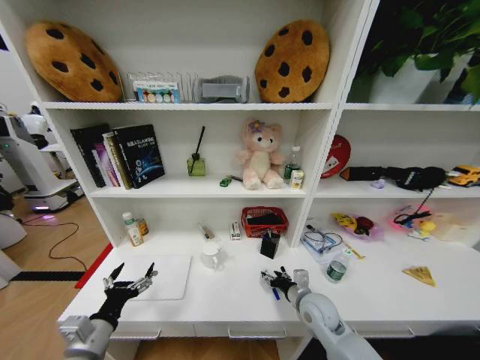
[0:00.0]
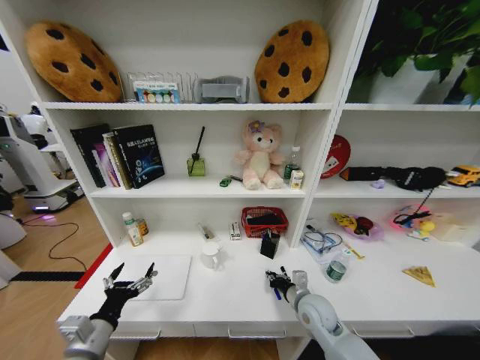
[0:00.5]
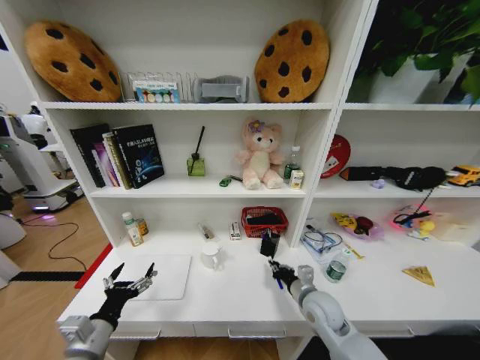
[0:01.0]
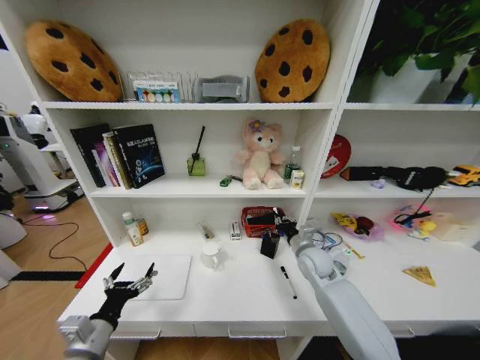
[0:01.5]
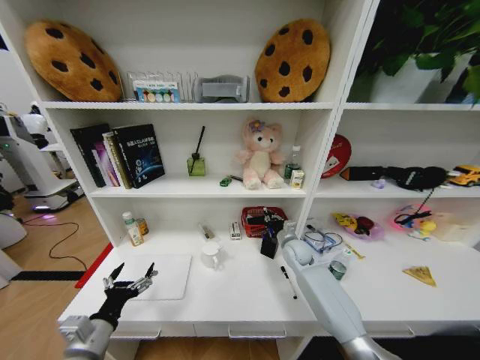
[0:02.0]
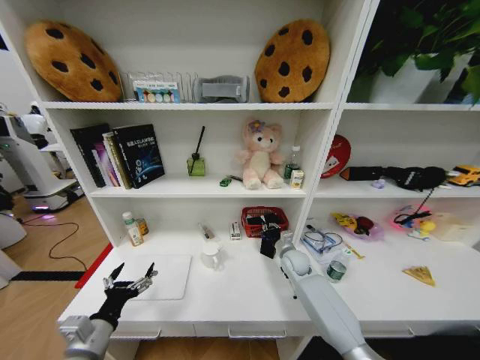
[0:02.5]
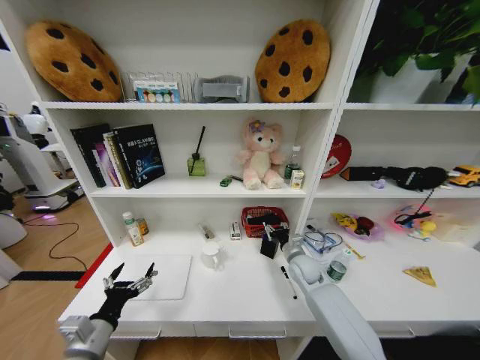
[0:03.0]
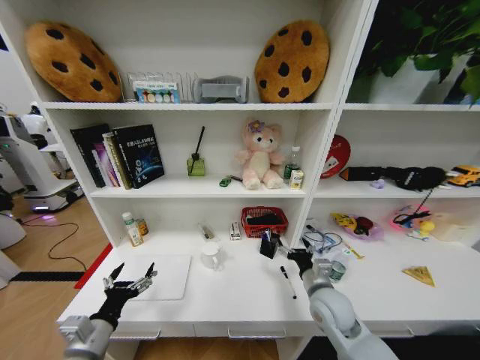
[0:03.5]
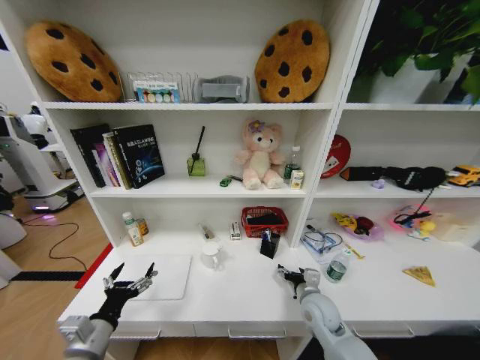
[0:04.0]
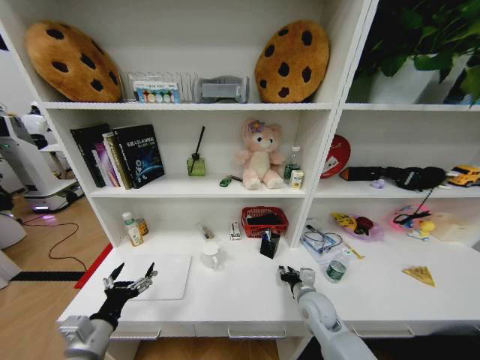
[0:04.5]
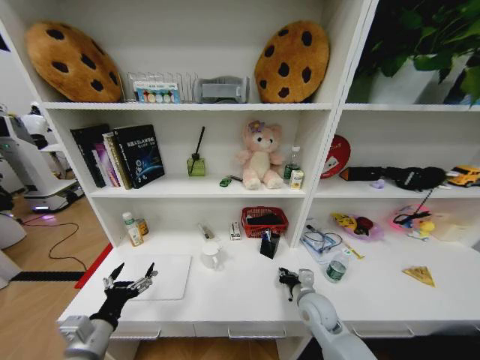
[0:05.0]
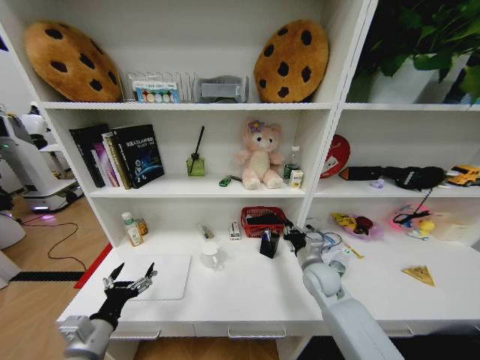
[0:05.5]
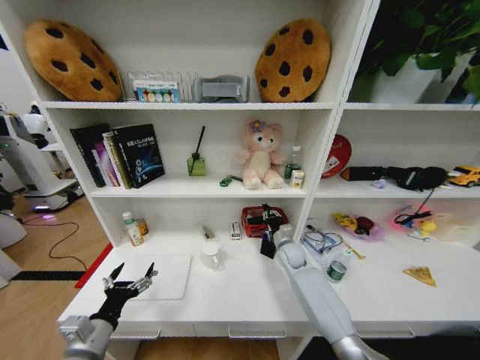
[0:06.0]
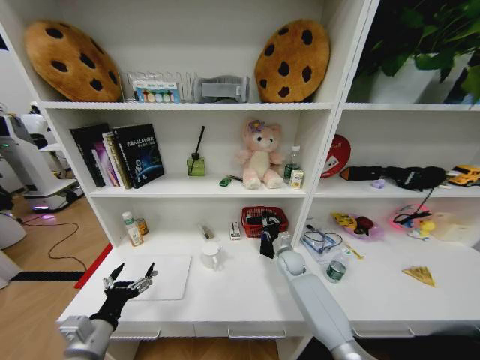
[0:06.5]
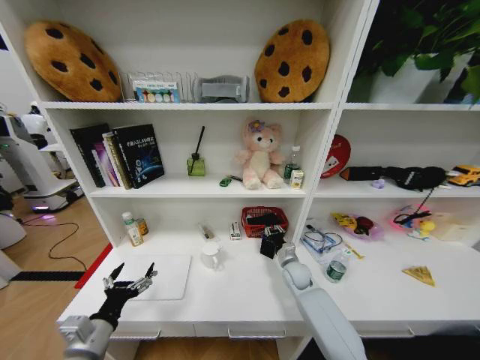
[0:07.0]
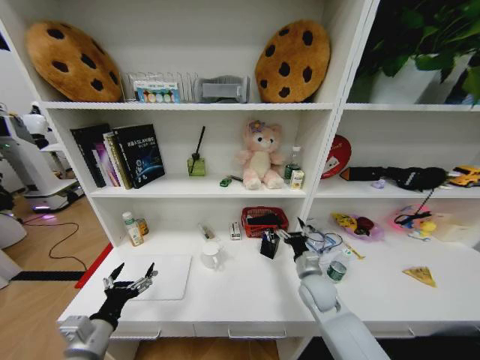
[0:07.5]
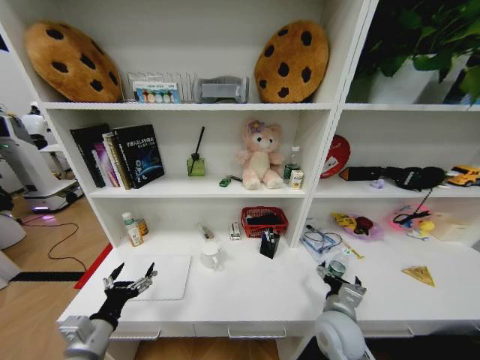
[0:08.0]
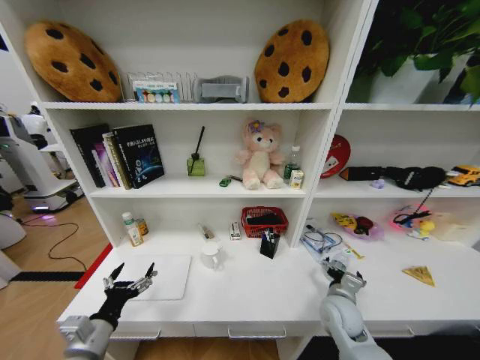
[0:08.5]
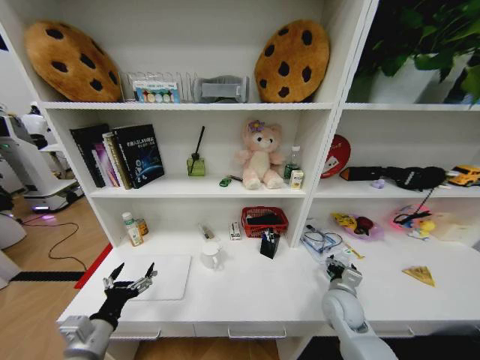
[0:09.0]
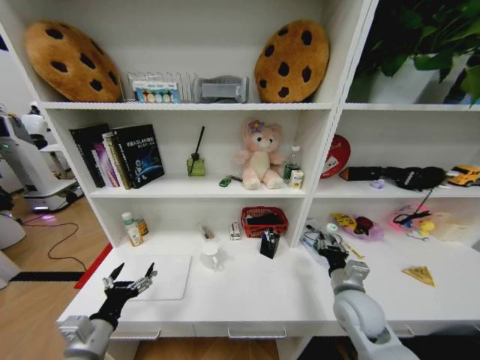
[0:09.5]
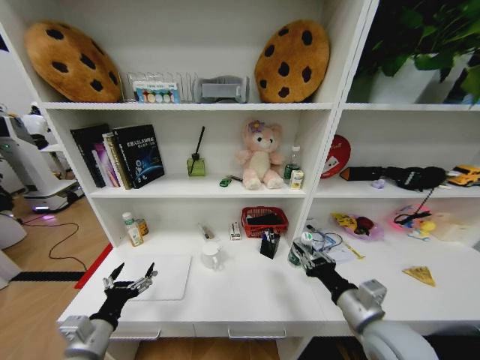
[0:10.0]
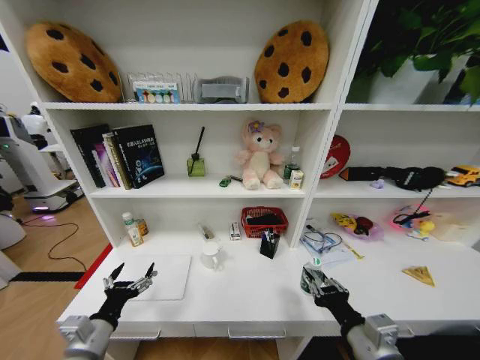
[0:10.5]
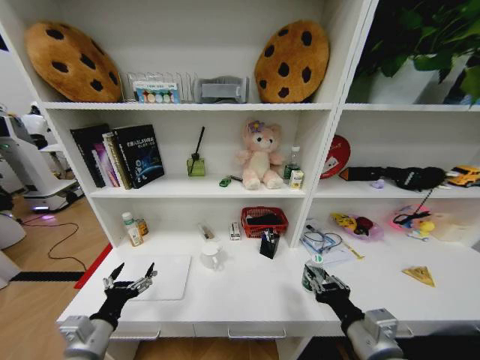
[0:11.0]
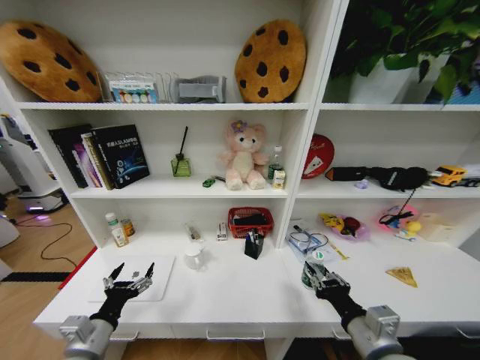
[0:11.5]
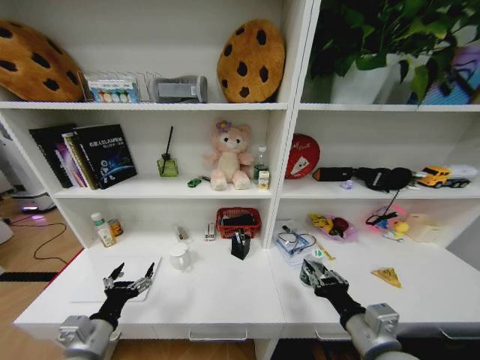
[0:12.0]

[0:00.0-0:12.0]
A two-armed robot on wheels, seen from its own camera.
Task of the whole recording: Organize the objects on the table.
0:00.0 to 0:02.0: The right gripper moves forward, approximately 20 cm, and closes its fingers.
0:02.0 to 0:04.0: The right gripper heads backward, covering about 20 cm, and opens.
0:04.0 to 0:06.0: The right gripper moves forward, some 20 cm, and closes its fingers.
0:06.0 to 0:08.0: The right gripper goes roughly 25 cm backward, and opens.
0:08.0 to 0:10.0: The right gripper shifts roughly 10 cm upward, and closes up.
0:10.0 to 0:12.0: The right gripper goes approximately 5 cm backward.

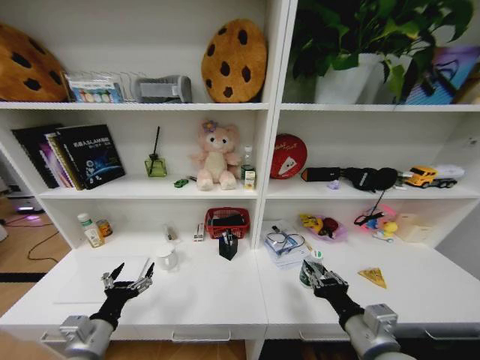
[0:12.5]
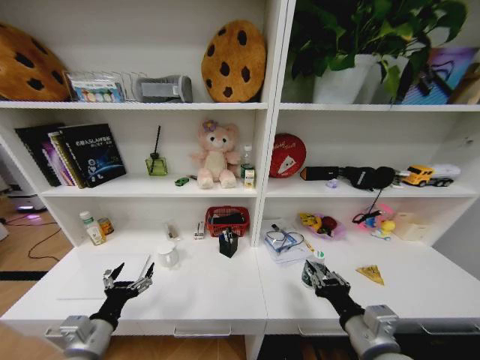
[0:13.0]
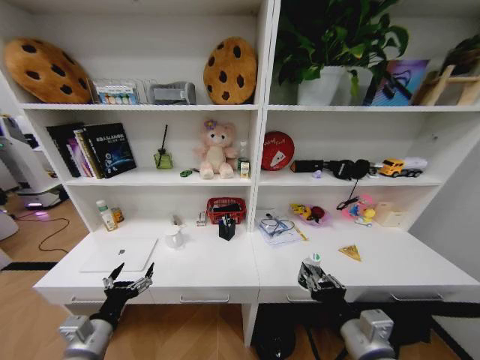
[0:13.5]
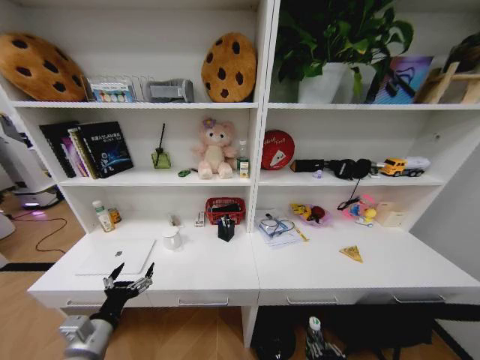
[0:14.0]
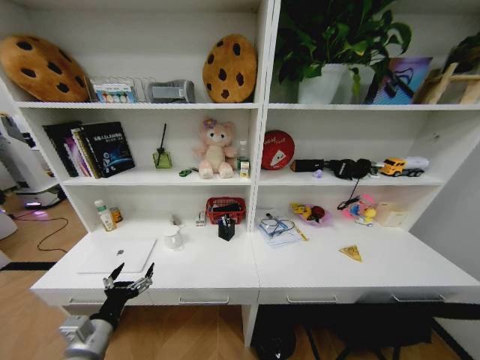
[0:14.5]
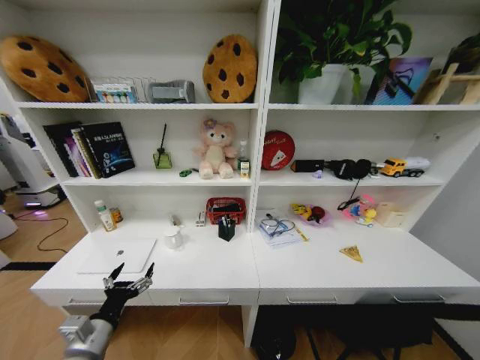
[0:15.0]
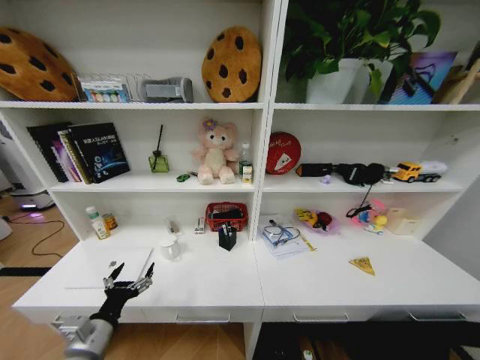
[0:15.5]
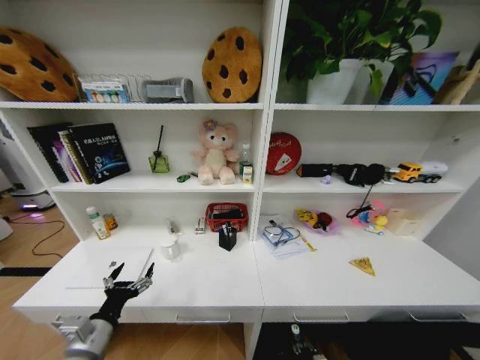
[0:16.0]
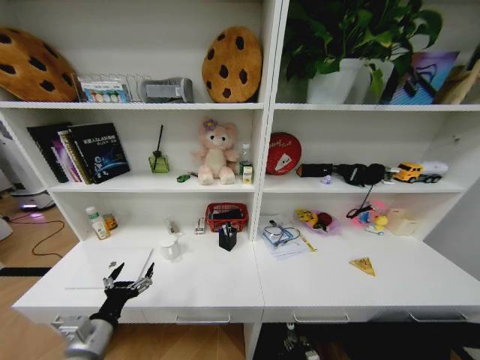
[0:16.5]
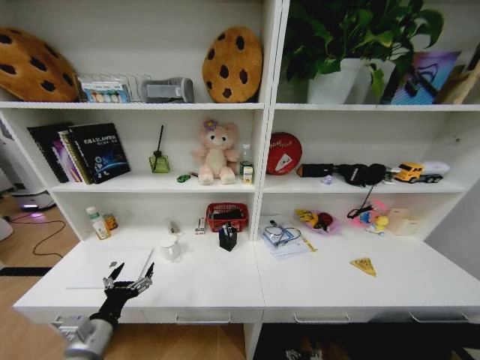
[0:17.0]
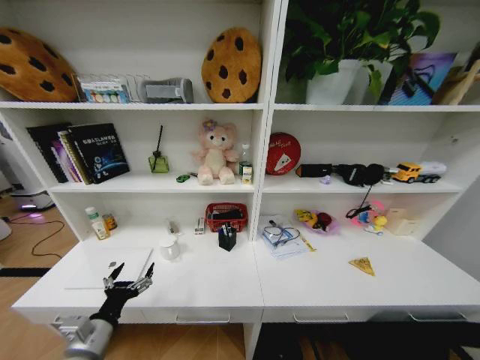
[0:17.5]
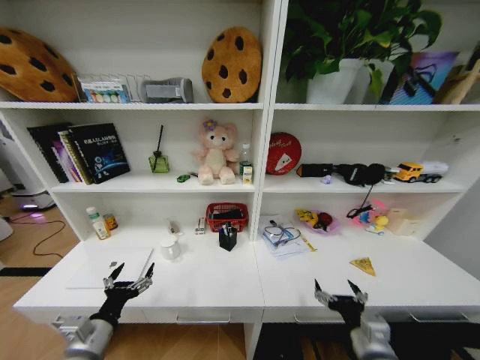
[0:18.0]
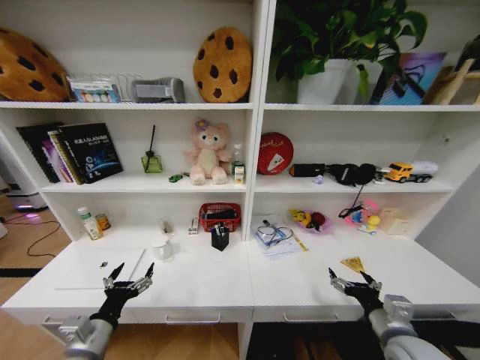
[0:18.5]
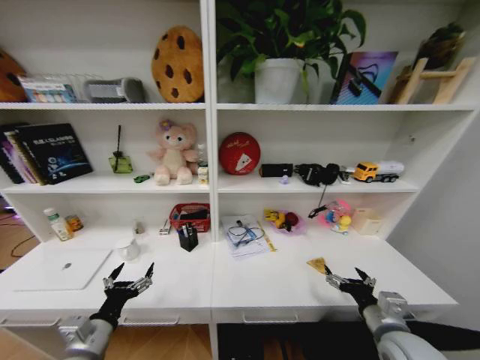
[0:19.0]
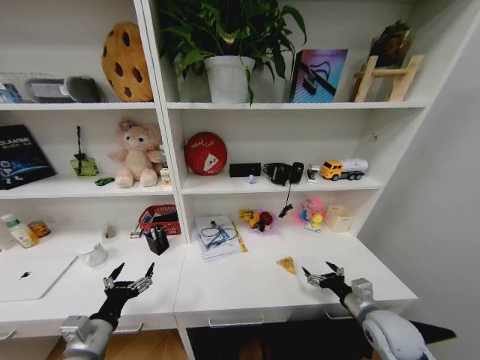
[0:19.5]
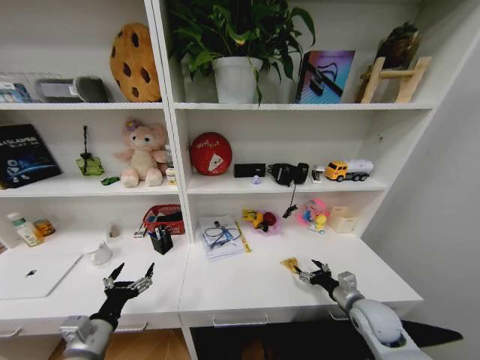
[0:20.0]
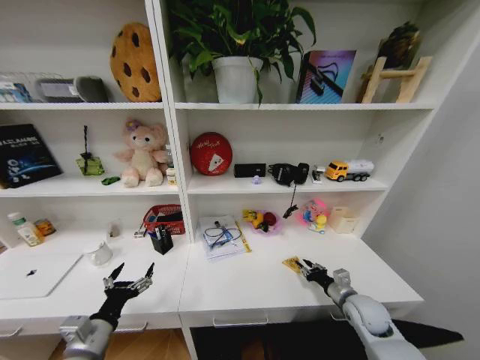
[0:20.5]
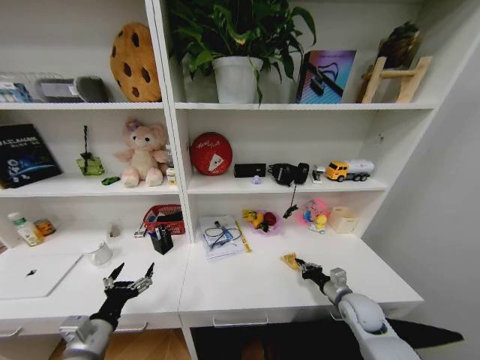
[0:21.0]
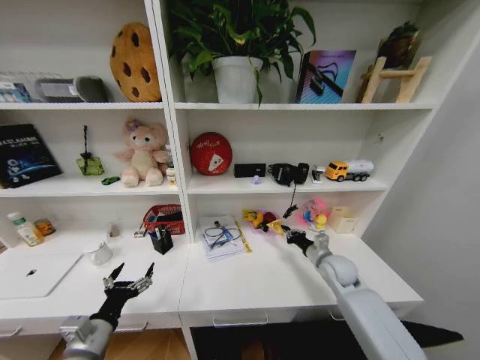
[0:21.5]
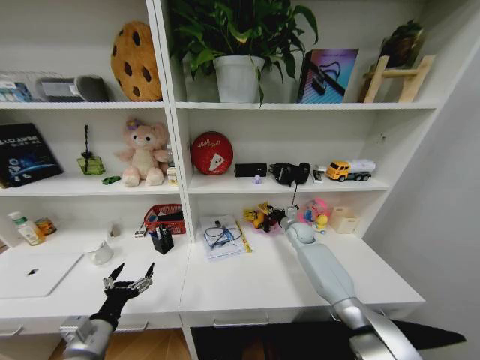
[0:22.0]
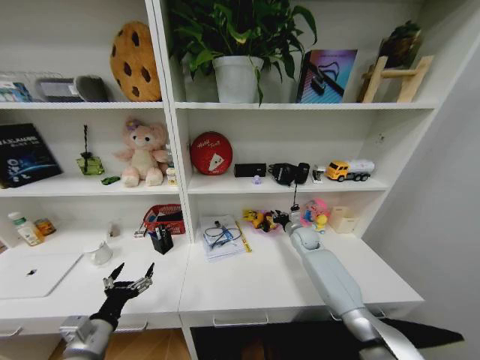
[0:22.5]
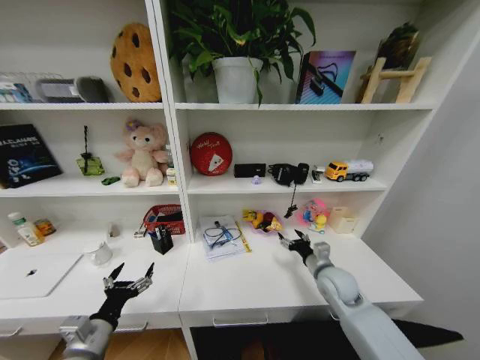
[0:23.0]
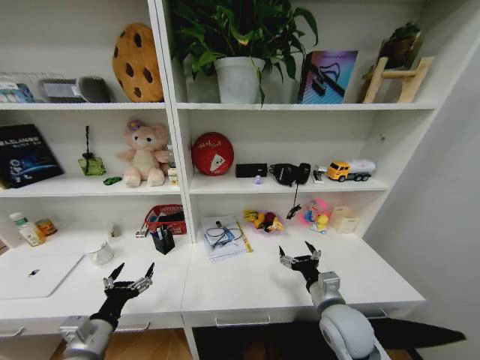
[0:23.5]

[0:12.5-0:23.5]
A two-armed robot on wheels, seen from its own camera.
Task of the whole recording: Organize the objects on the table.
0:12.5 to 0:14.5: The right gripper is displaced downward by roughly 30 cm.
0:14.5 to 0:16.0: The right gripper heads downward and forward, covering about 10 cm.
0:16.0 to 0:18.0: The right gripper heads upward, covering roughly 30 cm, and opens its fingers.
0:18.0 to 0:20.0: The right gripper travels forward and to the right by roughly 15 cm.
0:20.0 to 0:21.5: The right gripper is displaced forward by approximately 10 cm, and closes.
0:21.5 to 0:23.5: The right gripper shifts roughly 15 cm backward and to the left, and opens.
